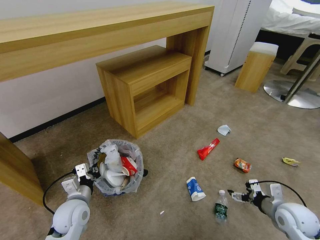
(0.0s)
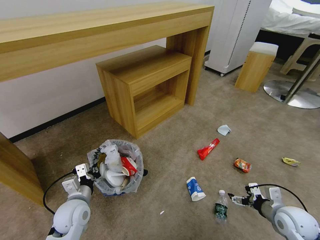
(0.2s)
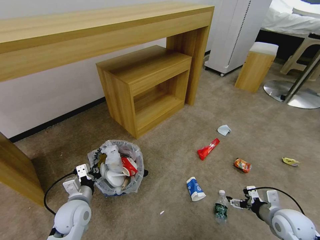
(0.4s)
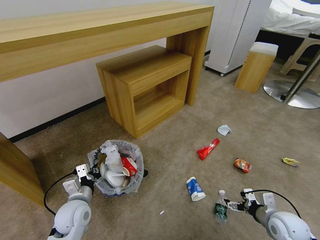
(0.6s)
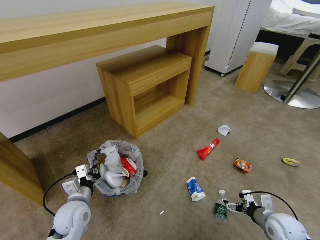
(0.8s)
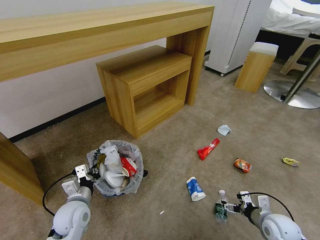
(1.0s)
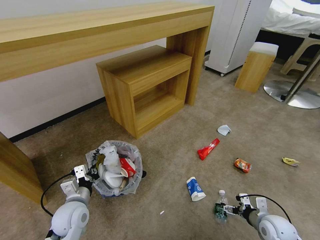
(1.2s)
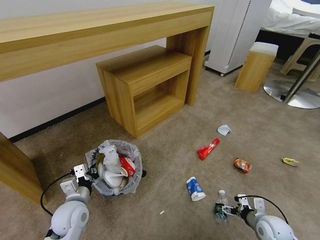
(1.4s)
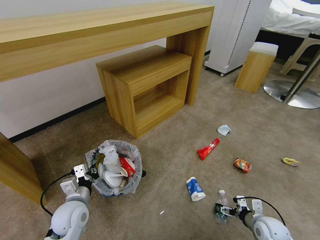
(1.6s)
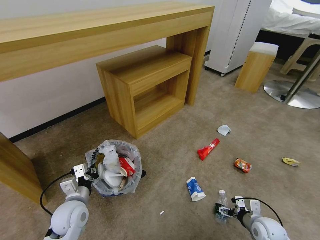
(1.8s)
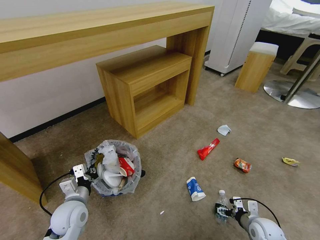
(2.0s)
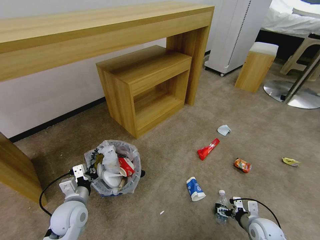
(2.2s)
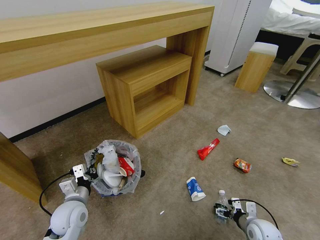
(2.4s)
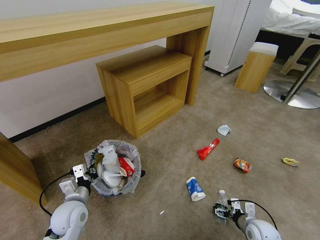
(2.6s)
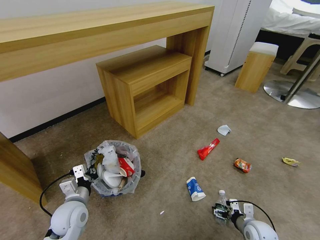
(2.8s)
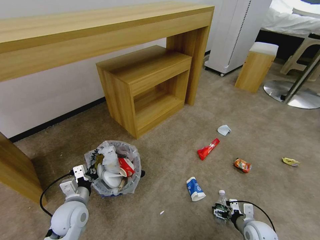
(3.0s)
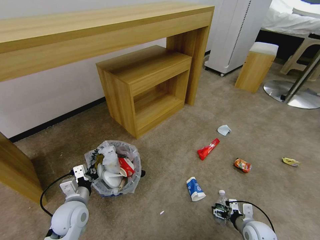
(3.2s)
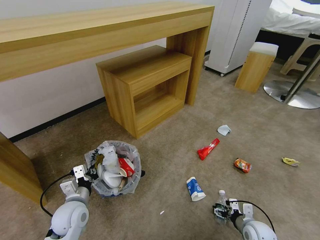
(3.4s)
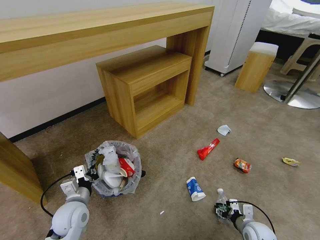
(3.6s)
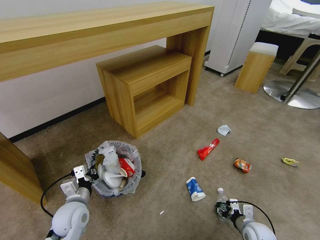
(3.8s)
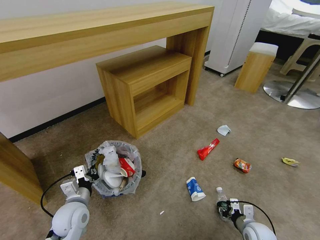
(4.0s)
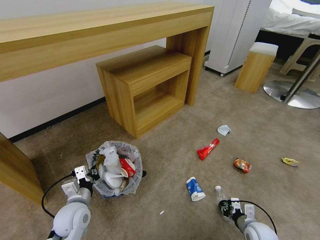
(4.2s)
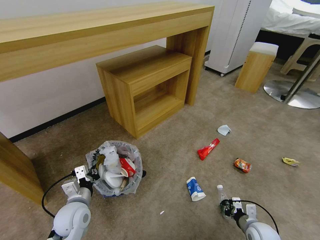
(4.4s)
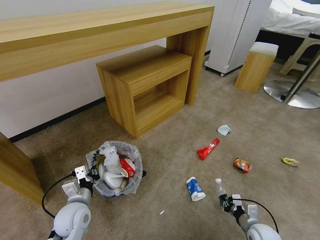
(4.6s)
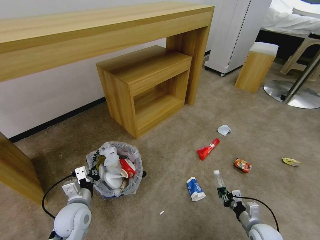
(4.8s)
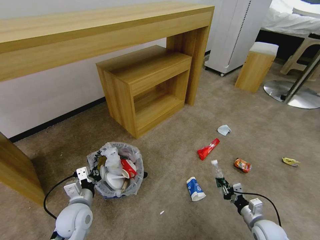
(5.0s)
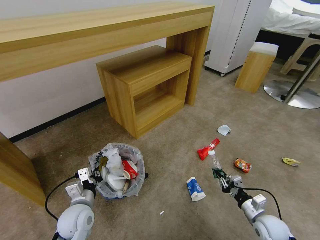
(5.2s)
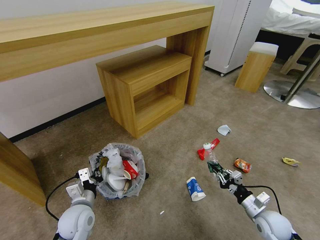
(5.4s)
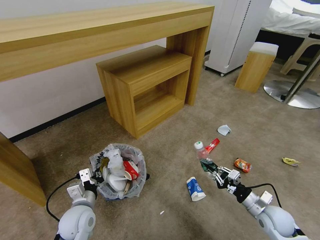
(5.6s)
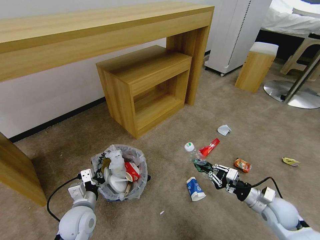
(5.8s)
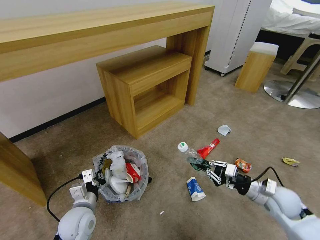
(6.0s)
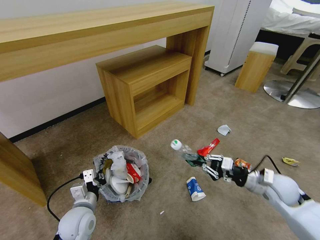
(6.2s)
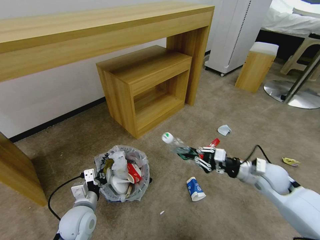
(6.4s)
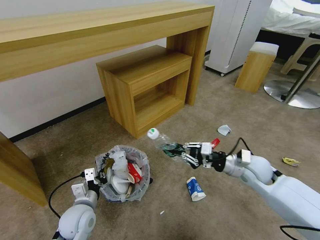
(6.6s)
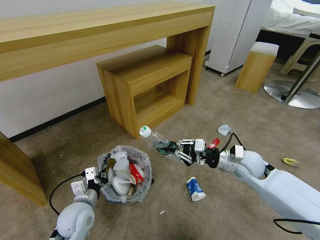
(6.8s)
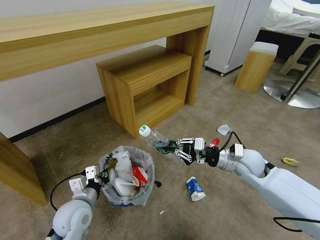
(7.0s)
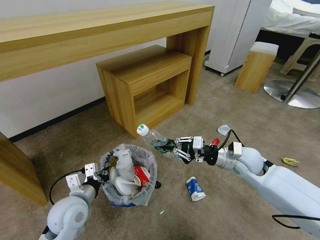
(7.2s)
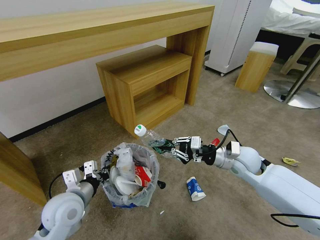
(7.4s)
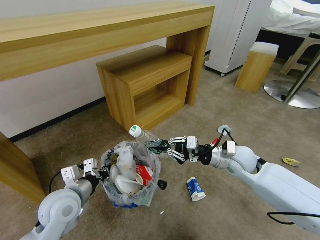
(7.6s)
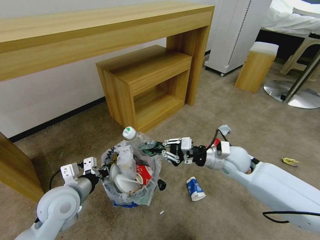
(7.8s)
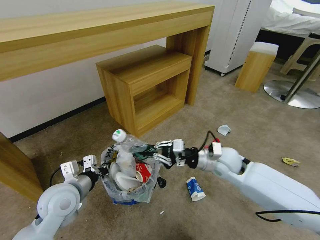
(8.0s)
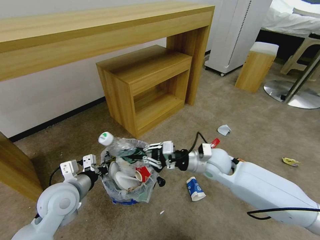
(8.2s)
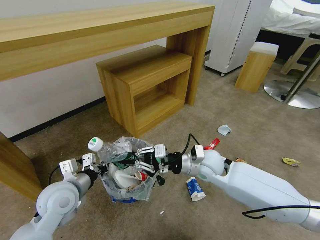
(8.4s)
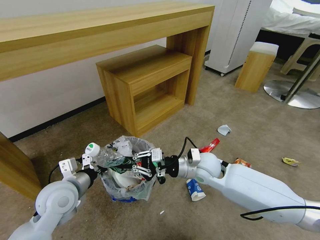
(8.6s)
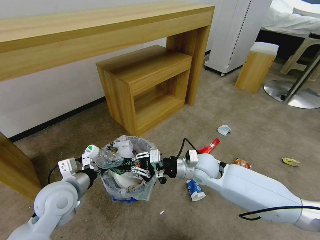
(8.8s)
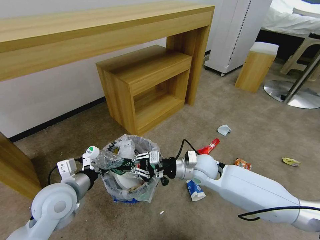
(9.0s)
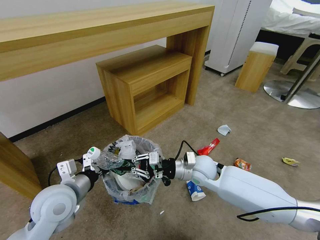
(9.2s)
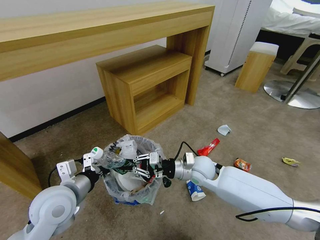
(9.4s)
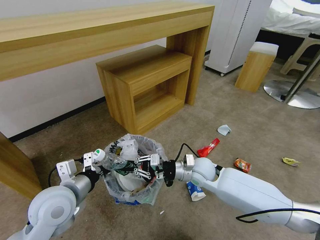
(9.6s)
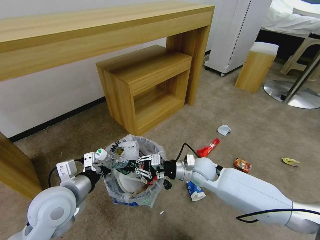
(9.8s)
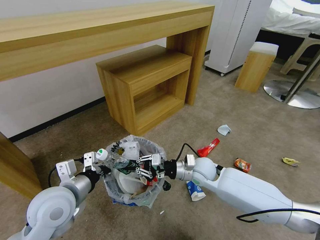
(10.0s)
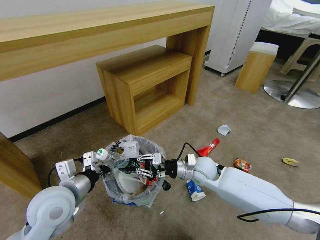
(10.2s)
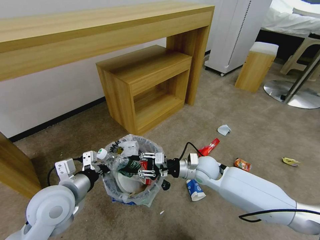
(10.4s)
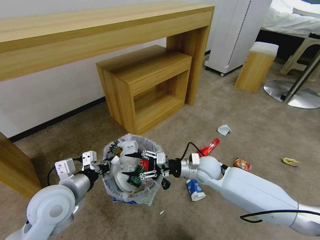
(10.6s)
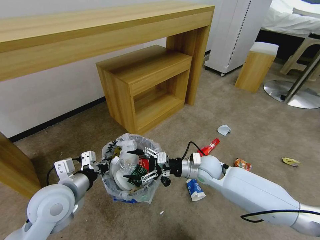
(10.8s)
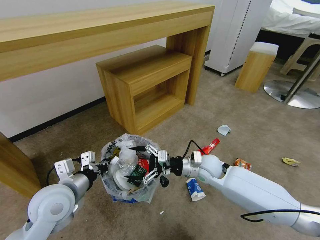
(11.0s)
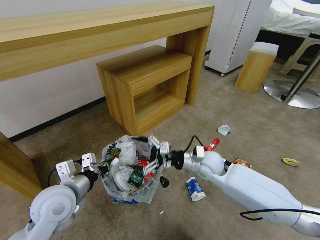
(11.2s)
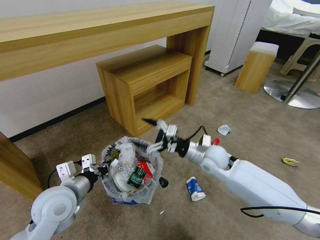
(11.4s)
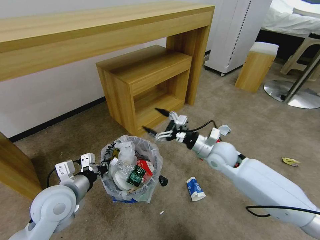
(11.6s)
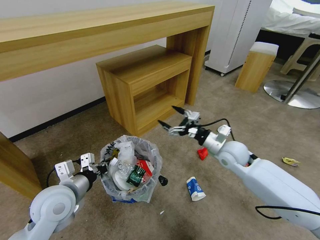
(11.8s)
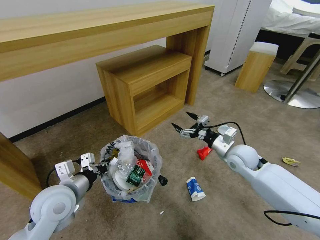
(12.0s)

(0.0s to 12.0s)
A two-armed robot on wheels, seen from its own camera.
Task of the whole recording: Pick up the trash bin and place the garbage on the floor into it.
0.0s - 1.6s: The right gripper travels downward by approximately 10 cm.
1.6s - 3.0s: The grippers move only a little.
3.0s - 4.4s: The right gripper closes its fingers.
4.4s - 6.0s: The right gripper is displaced upward and forward by approximately 15 cm.
6.0s - 7.6s: The left gripper moves upward, approximately 10 cm. The right gripper is displaced to the left, forward and upward by some 20 cm.
7.6s - 9.0s: The right gripper goes approximately 10 cm to the left.
9.0s - 10.4s: The grippers move only a little.
10.4s - 12.0s: The right gripper travels to the right by about 10 cm, and opens.

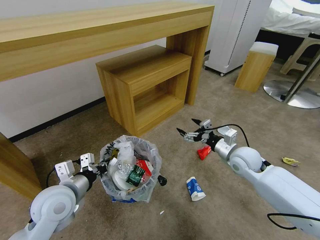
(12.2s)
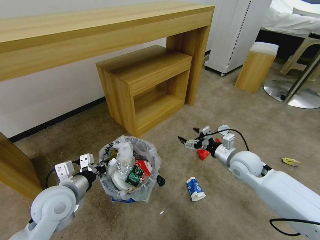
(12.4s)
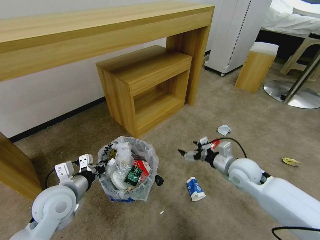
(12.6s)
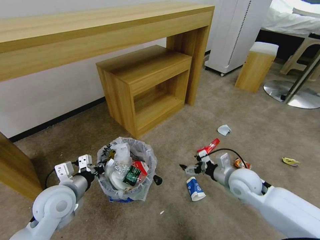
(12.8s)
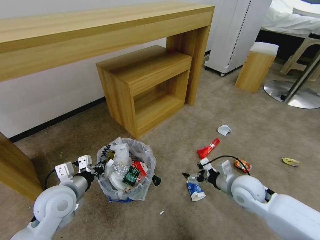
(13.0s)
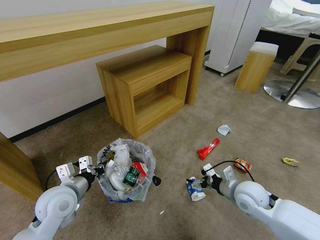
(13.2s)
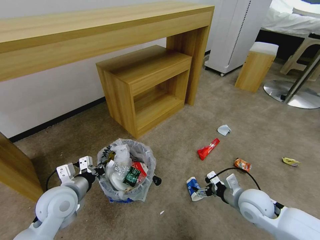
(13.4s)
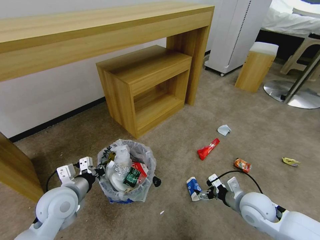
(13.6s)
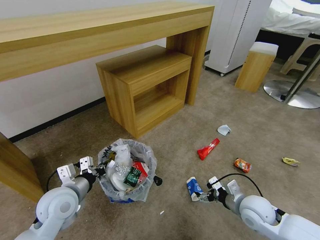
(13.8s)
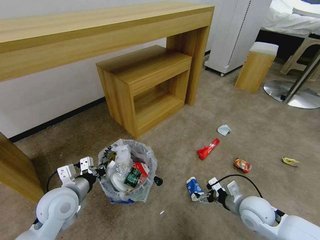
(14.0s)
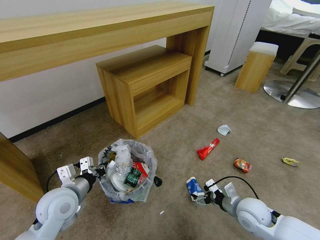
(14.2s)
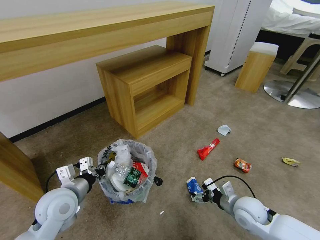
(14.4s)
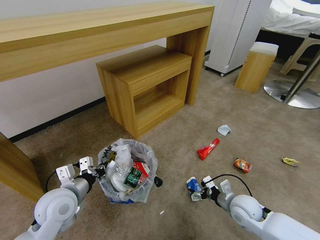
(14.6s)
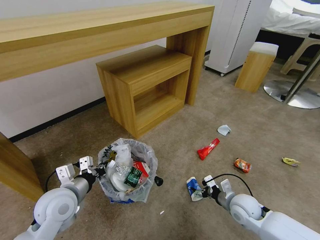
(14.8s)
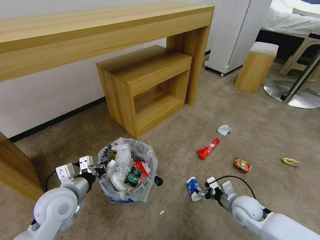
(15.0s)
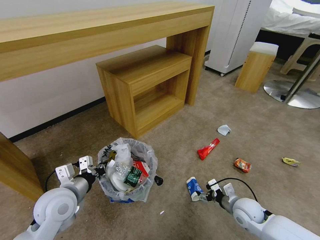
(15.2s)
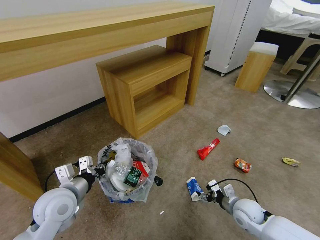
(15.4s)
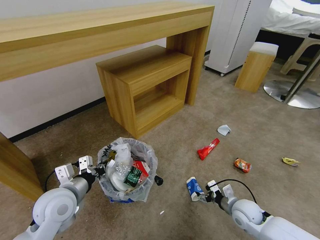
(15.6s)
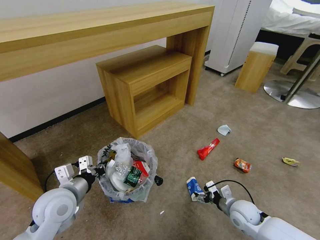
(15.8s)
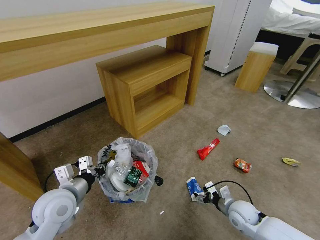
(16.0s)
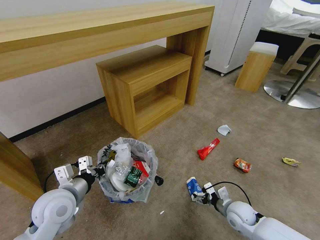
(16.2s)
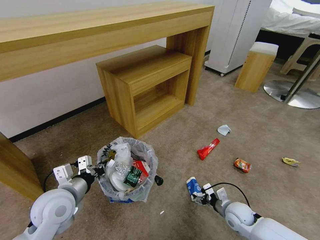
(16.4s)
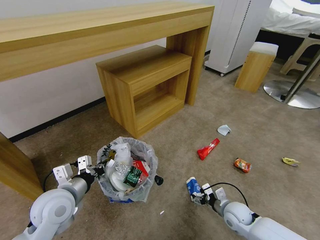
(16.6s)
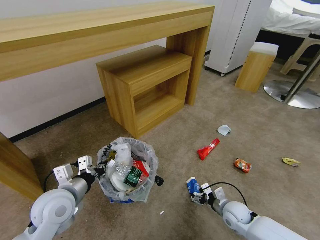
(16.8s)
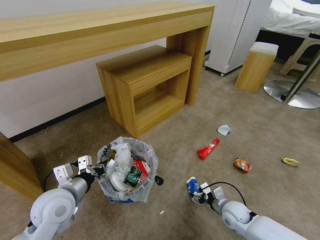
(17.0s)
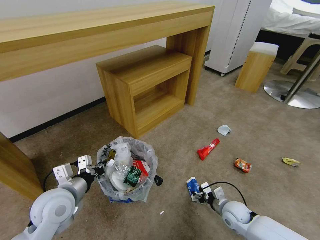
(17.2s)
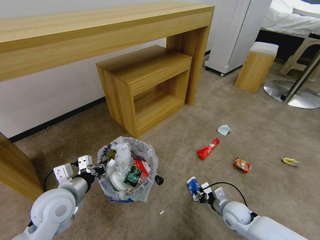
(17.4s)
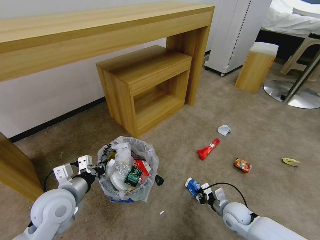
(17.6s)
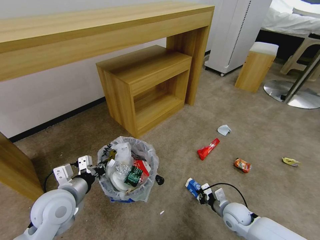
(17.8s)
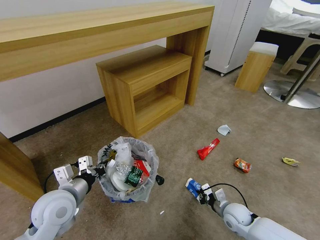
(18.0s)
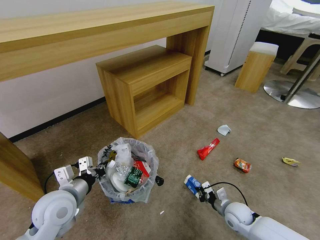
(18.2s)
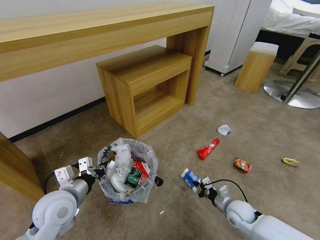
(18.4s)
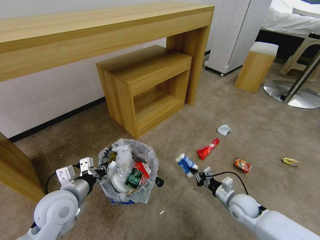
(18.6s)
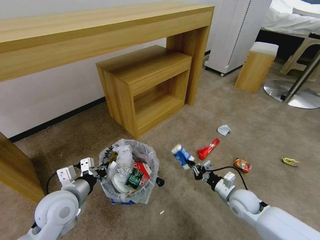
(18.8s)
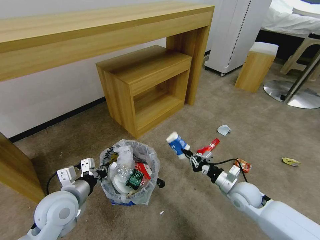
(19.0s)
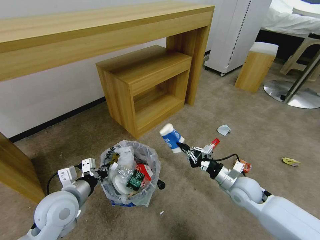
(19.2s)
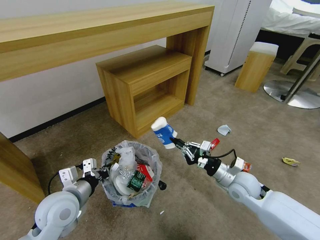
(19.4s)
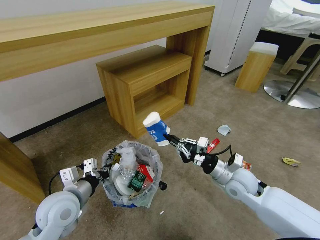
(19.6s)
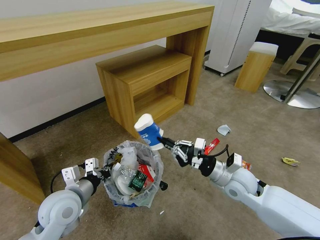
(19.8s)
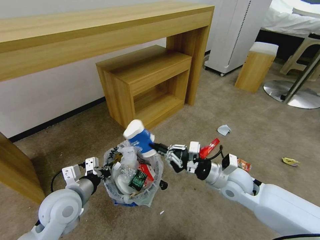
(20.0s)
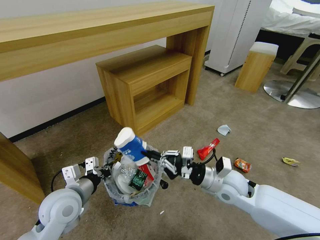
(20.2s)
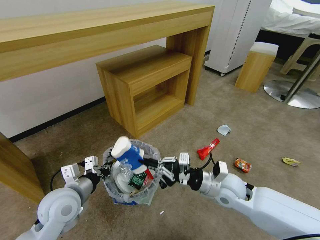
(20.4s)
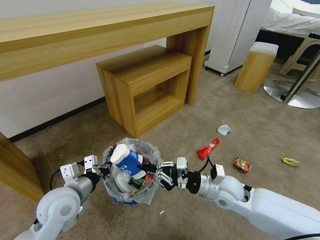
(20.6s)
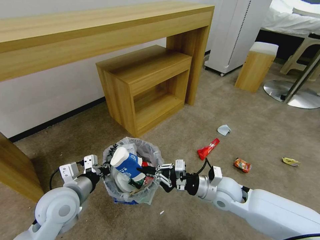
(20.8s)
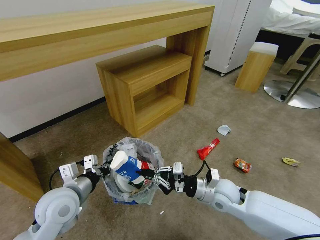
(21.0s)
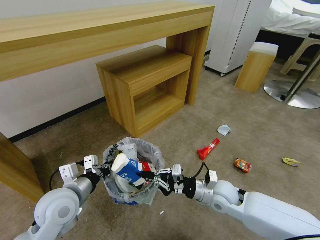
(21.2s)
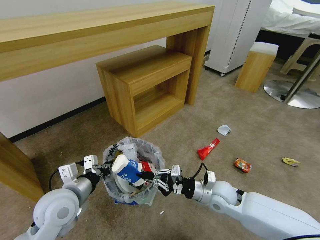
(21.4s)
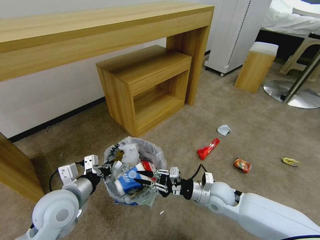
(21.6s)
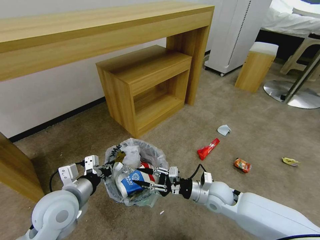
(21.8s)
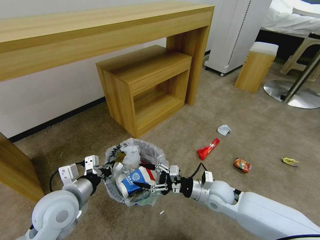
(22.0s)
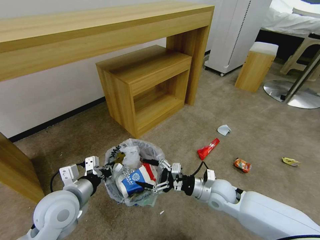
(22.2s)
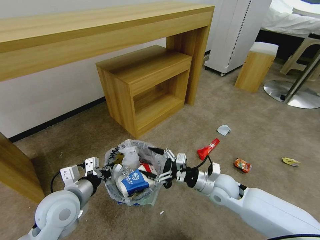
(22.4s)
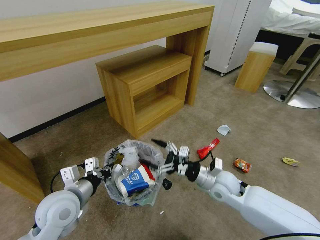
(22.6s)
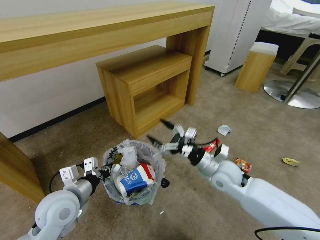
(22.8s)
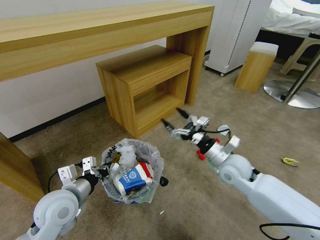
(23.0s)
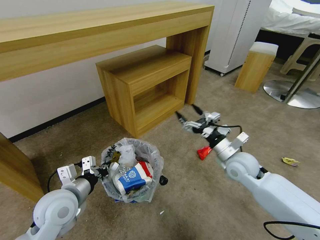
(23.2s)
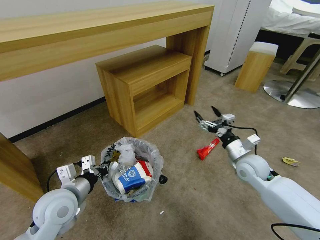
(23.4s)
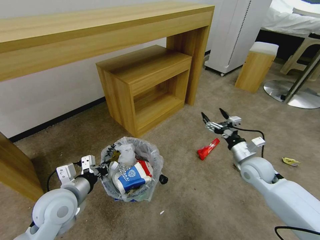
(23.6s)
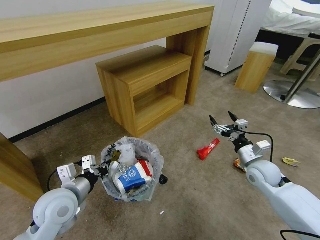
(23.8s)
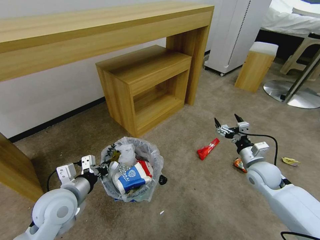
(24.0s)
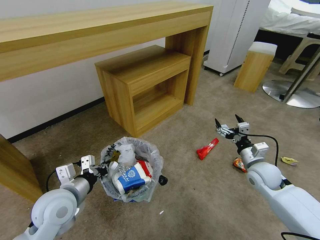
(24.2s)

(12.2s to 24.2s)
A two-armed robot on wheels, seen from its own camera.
Task of the whole recording: Pick up the trash bin and place the garbage on the floor into it.
12.2s - 13.8s: The right gripper heads backward and downward, covering about 15 cm.
13.8s - 15.2s: The right gripper is displaced downward by some 5 cm.
15.2s - 16.6s: The grippers stay close to where they were, moving slightly.
16.6s - 18.2s: The right gripper closes.
18.2s - 19.8s: The right gripper goes roughly 20 cm upward.
19.8s - 21.2s: The right gripper moves downward, roughly 5 cm.
21.2s - 22.6s: The right gripper opens up.
22.6s - 24.2s: The right gripper shifts roughly 15 cm to the right.
